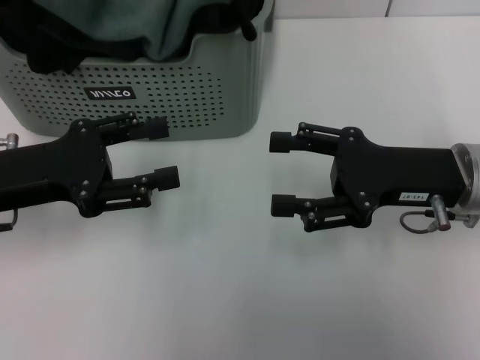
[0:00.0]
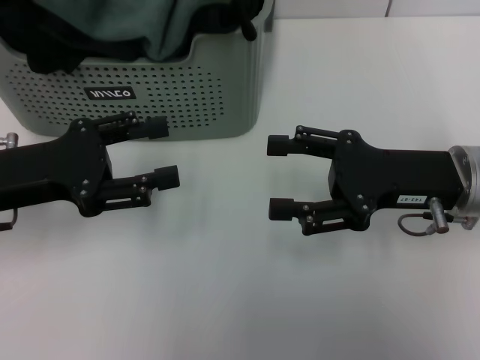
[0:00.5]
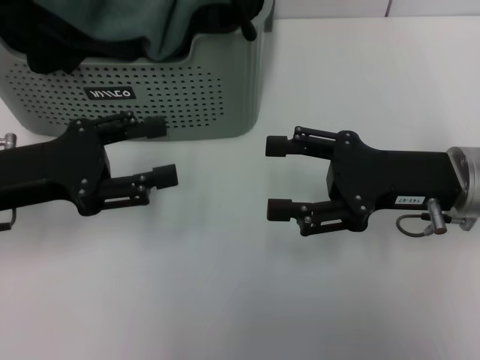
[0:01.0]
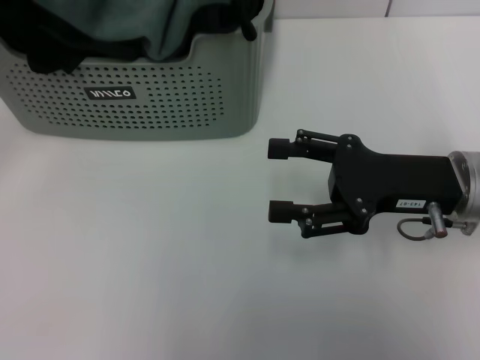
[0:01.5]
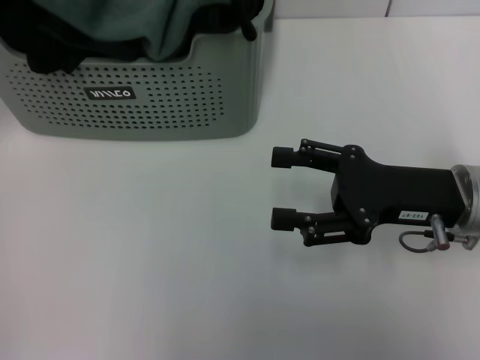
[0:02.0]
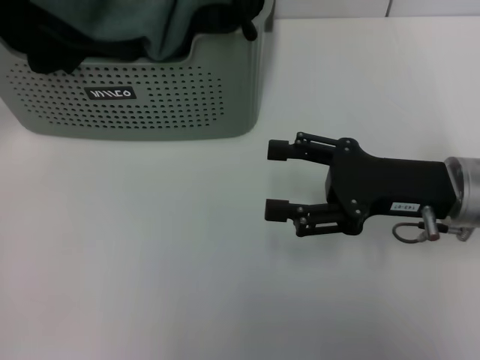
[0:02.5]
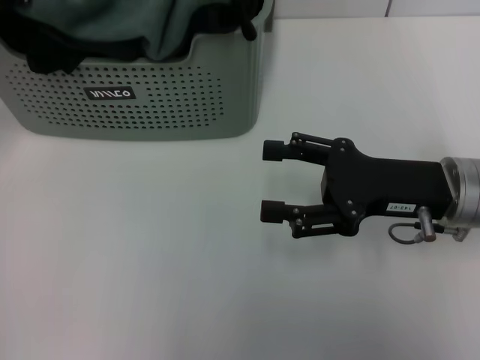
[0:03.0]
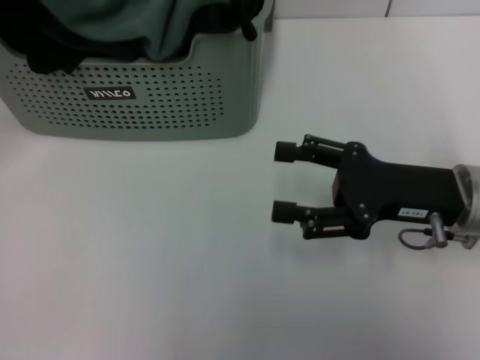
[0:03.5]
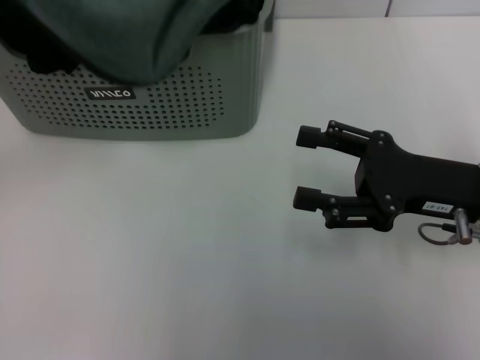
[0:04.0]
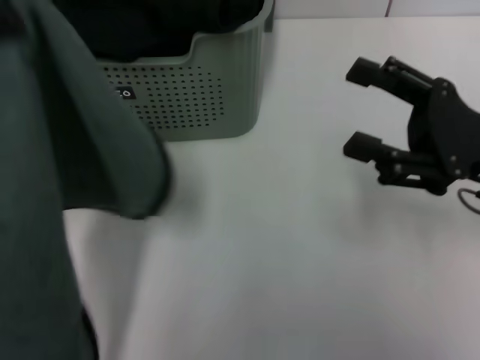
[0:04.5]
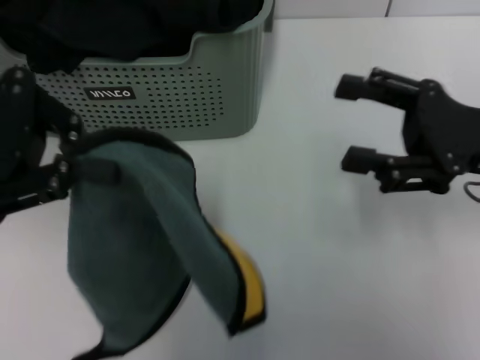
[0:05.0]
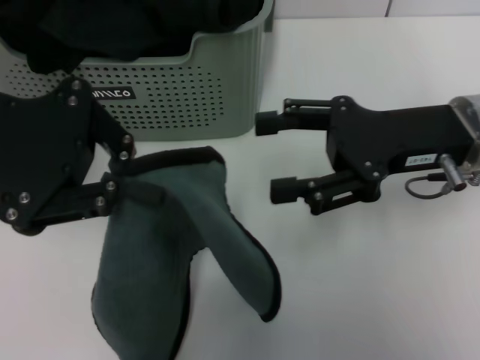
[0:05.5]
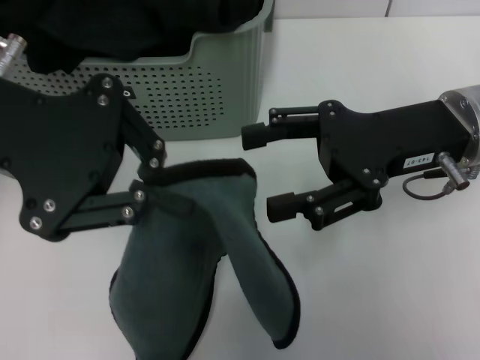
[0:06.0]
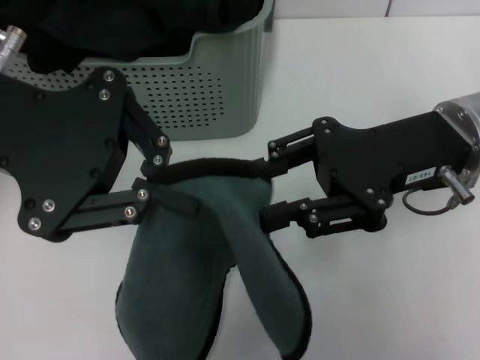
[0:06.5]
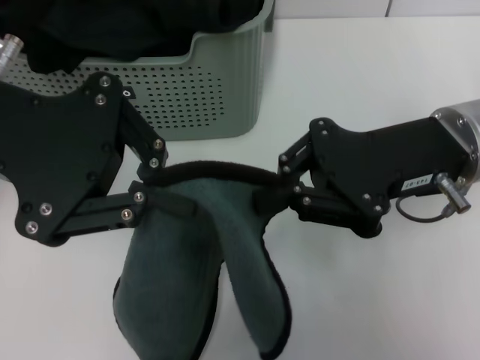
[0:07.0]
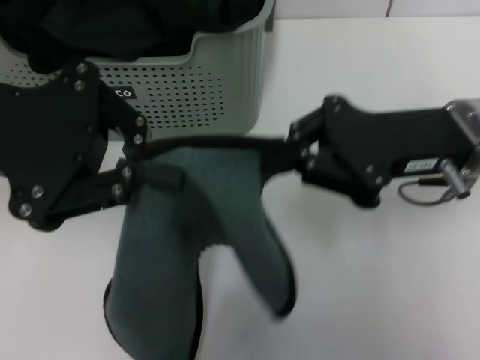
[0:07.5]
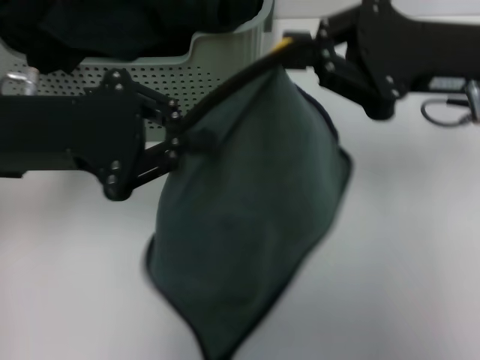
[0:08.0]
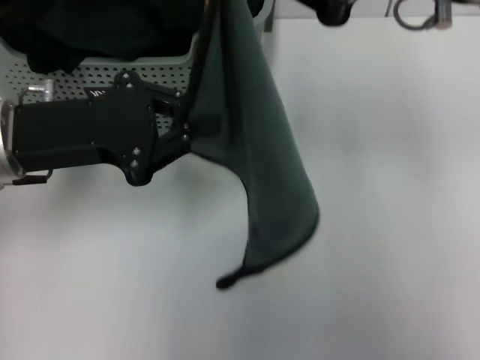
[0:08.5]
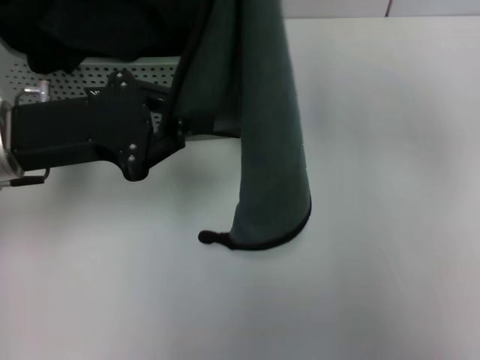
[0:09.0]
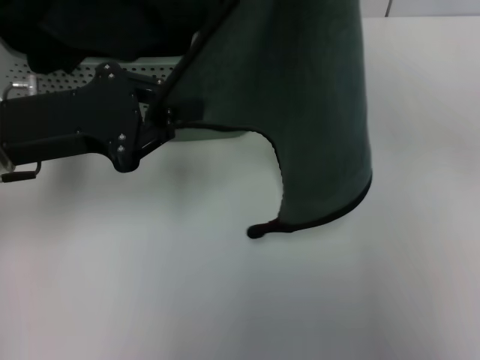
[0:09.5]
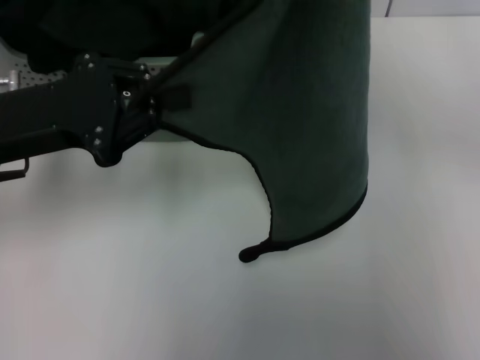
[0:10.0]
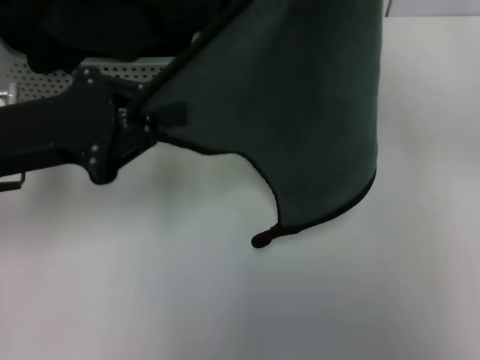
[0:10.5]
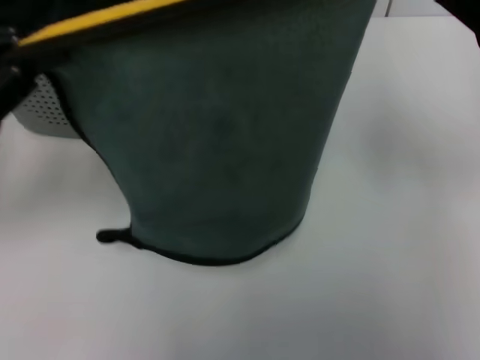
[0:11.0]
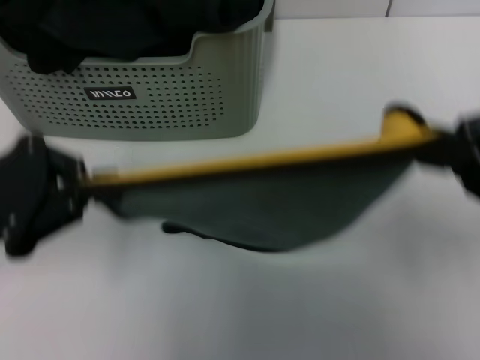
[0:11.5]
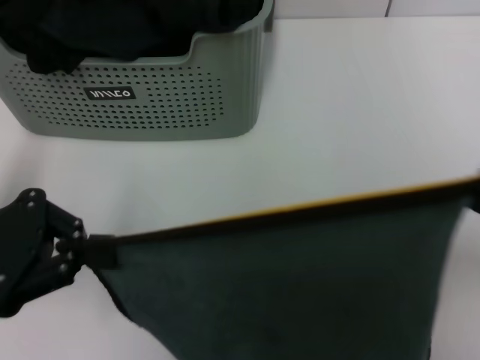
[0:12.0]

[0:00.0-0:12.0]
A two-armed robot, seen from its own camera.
Task of the whole recording: pick up the towel from the storage box and lay it flat on the table.
Step, 0:00.0 to 0:03.0: Pick up a towel with the left gripper.
Step, 0:03.5 to 0:07.0: Spread the towel flat with the left gripper.
0:00.0 to 0:02.0: The left gripper is displaced forward, upward and to the left by approximately 15 cm.
0:02.0 to 0:04.0: The left gripper moves backward, approximately 10 cm, and closes up.
0:04.0 to 0:06.0: The right gripper is displaced upward by roughly 5 cm, while the left gripper is displaced to the right by some 10 cm.
0:06.0 to 0:08.0: The left gripper heads downward, covering roughly 5 cm, while the right gripper closes up.
0:08.0 to 0:10.0: The right gripper shifts about 10 cm upward.
0:10.0 to 0:12.0: The left gripper shifts about 5 cm backward and to the left, while the right gripper heads downward and backward, covering roughly 15 cm.

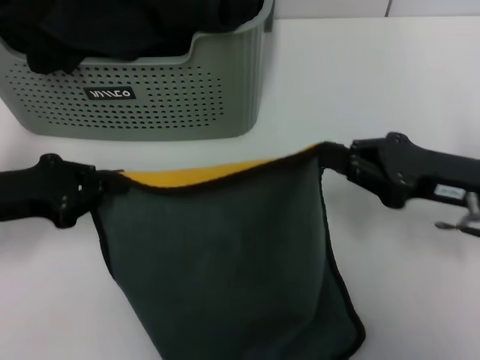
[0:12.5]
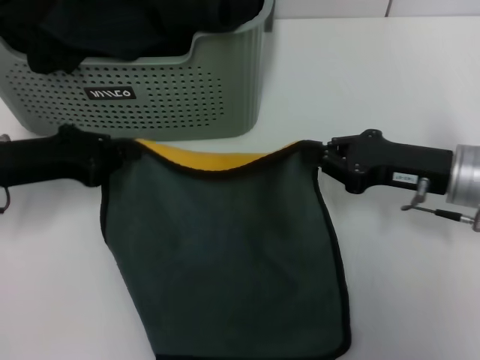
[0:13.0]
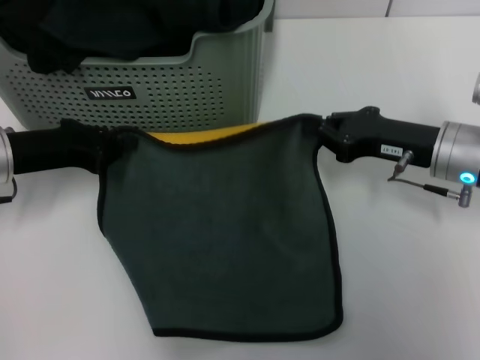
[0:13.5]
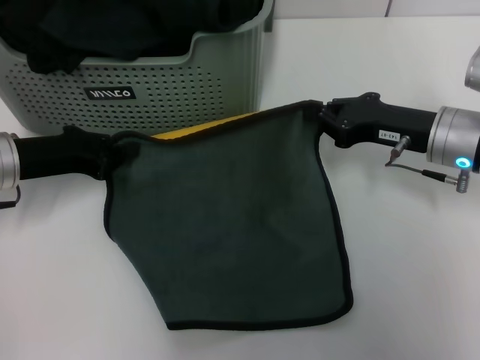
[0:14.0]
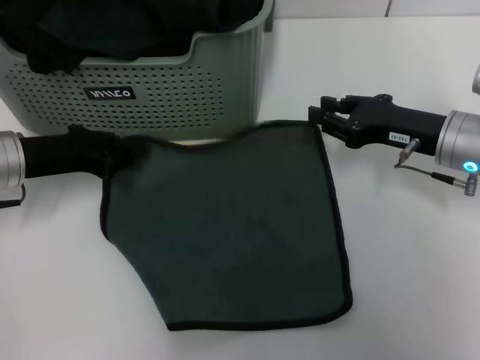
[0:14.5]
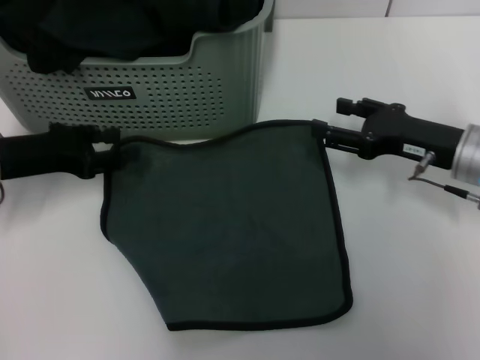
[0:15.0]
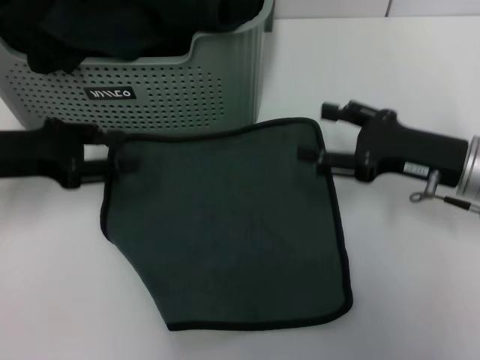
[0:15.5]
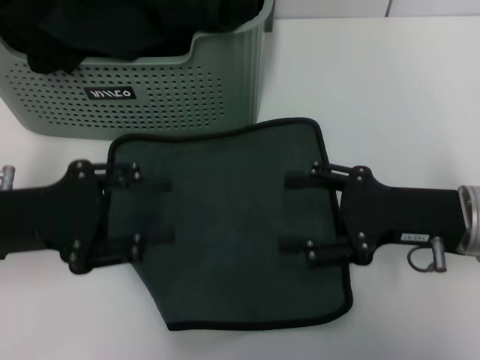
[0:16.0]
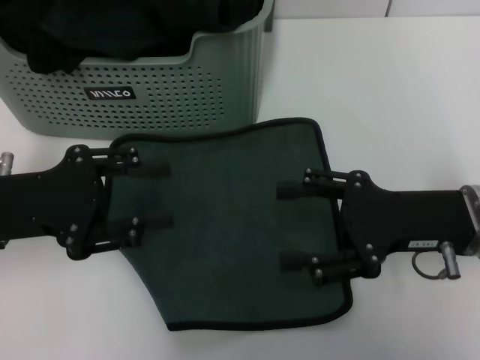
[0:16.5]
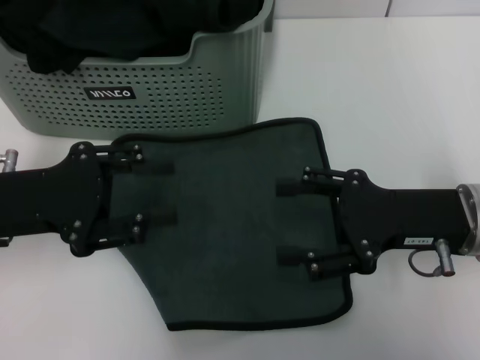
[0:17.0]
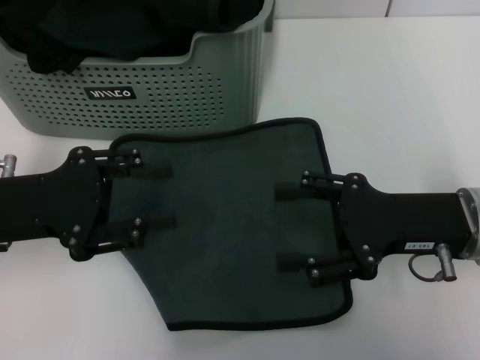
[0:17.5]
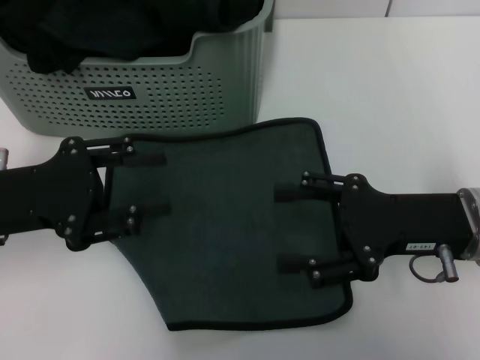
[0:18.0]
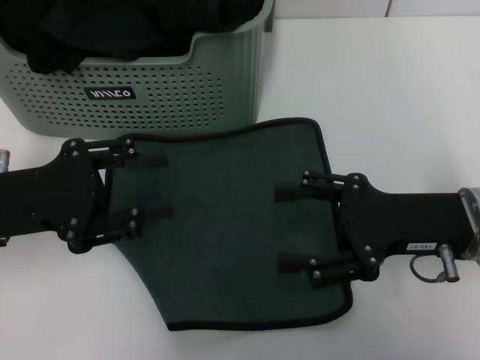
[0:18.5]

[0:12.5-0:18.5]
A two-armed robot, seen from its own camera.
Task of the whole recording: pick up the towel from the storage box and lay it flat on the table.
Step, 0:12.5 to 0:14.5: Spread the towel flat with the right gripper.
0:12.5 to 0:14.5: The two grippers go roughly 5 cm forward.
0:14.5 to 0:16.5: The grippers both shift backward by roughly 10 cm. The left gripper opens its fingers; the right gripper opens its fingers.
0:16.5 to 0:18.5: The two grippers keep their place.

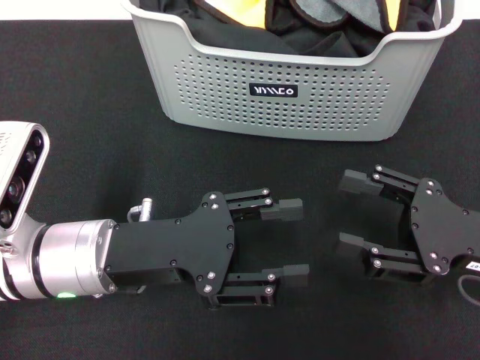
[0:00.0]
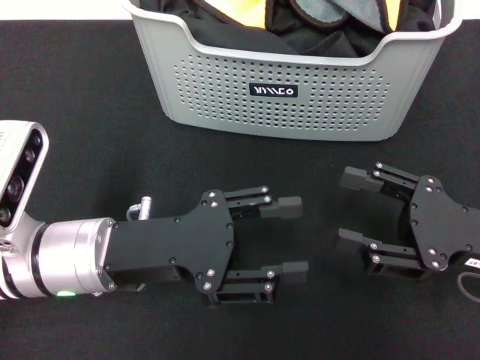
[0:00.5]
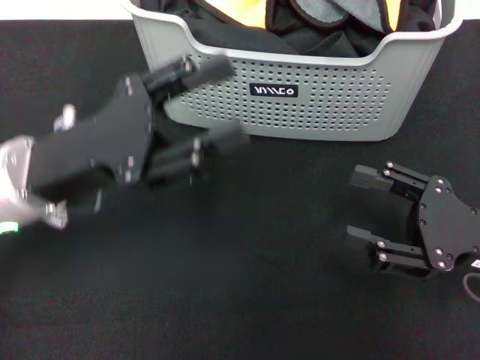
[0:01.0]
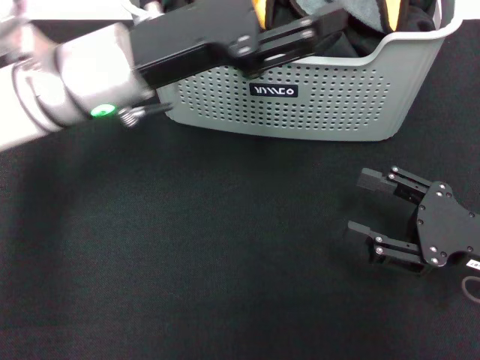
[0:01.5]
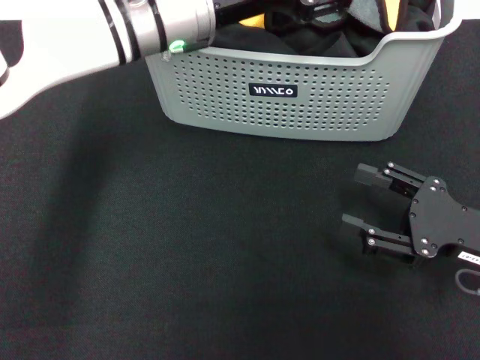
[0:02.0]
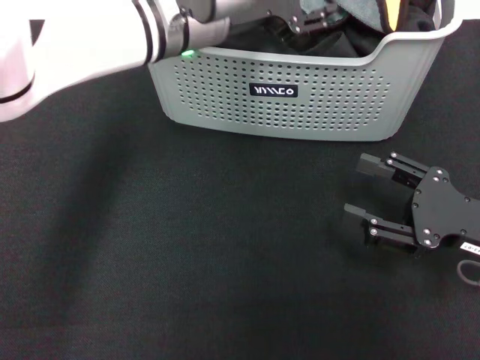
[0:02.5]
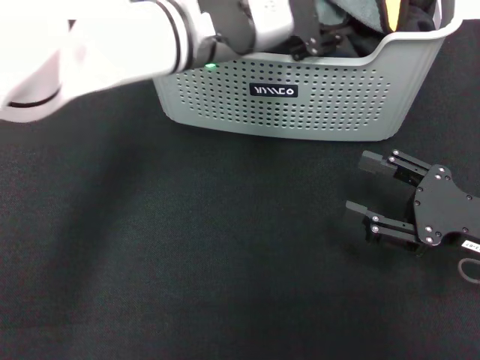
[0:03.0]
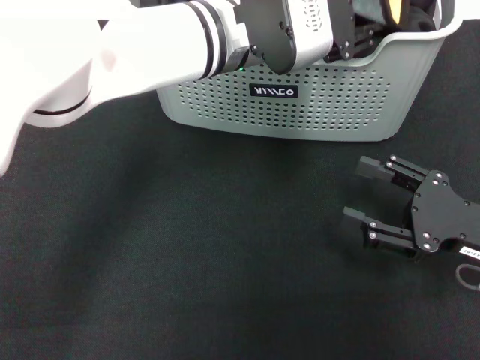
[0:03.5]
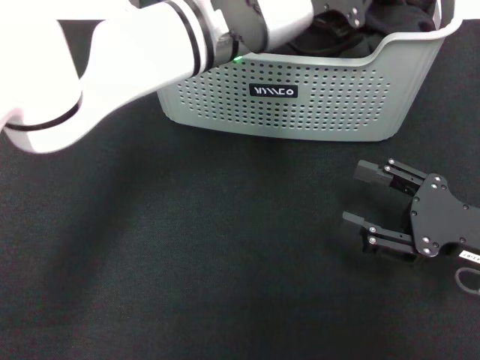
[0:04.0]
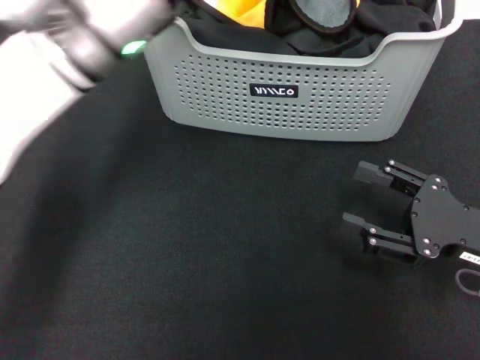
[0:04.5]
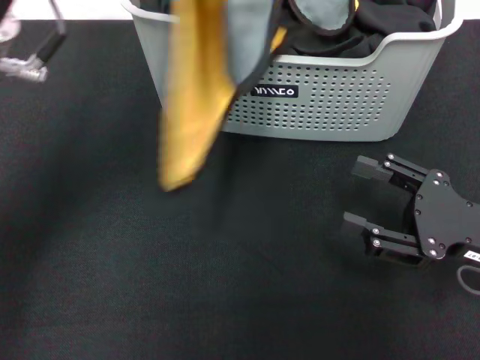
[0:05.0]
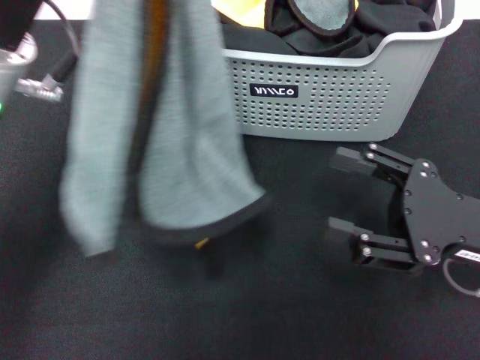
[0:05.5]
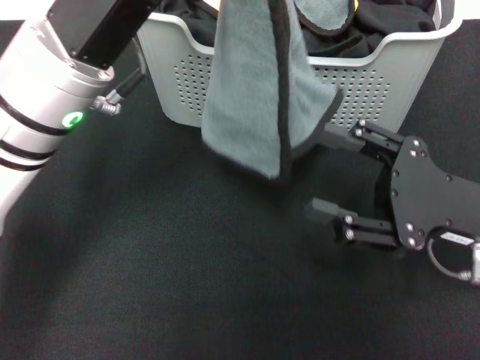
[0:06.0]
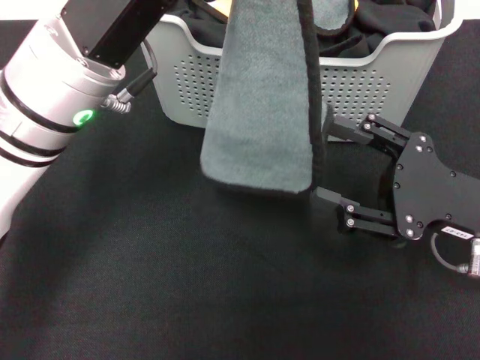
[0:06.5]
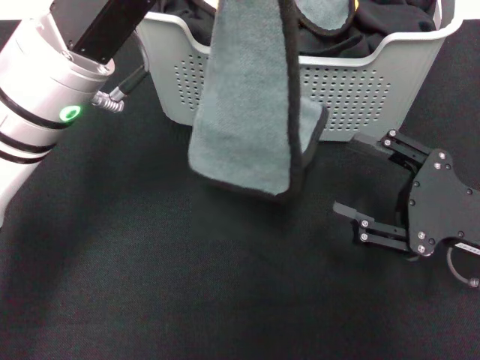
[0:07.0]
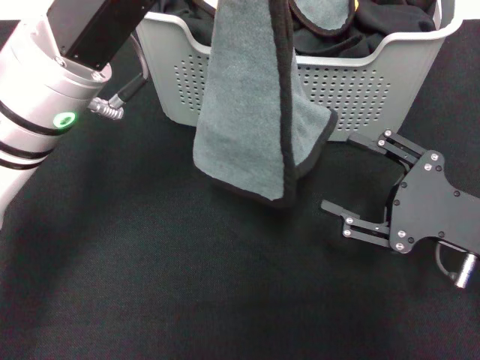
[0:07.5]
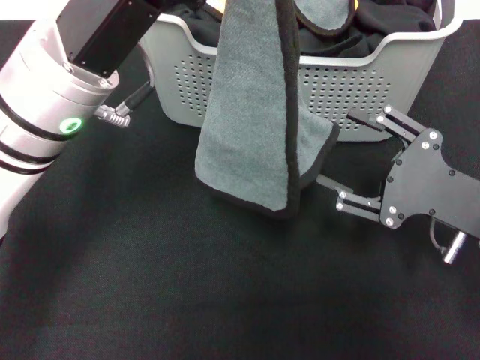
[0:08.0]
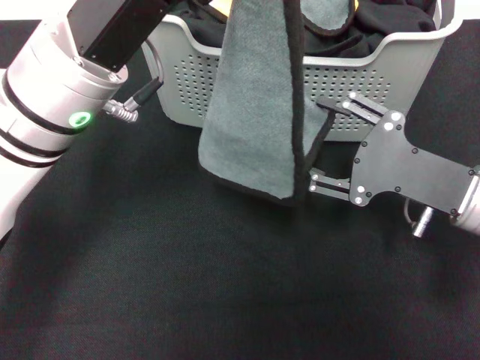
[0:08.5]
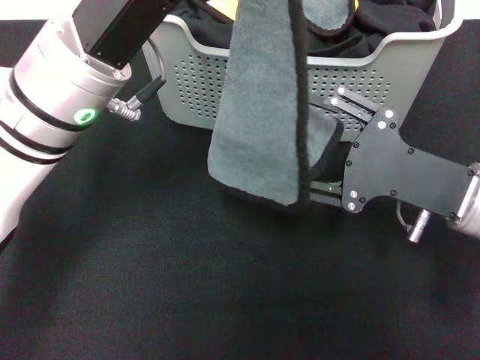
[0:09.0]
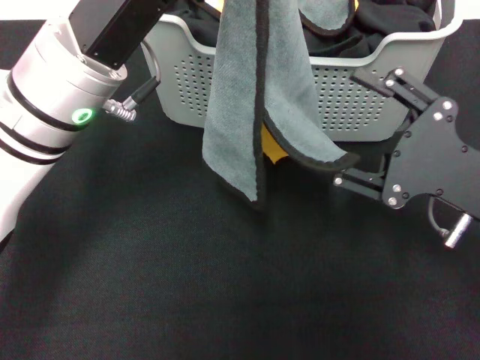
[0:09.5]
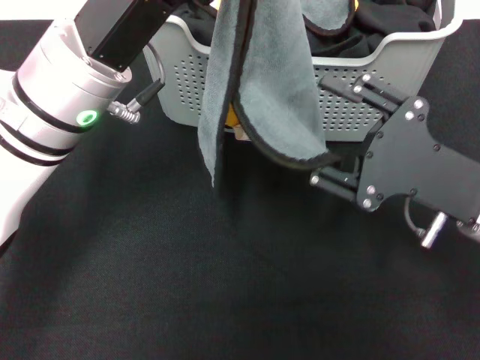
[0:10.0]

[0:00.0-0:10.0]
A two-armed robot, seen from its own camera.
Task of the whole recording: pick up the towel from the storage box and lay it flat on the black tablecloth.
Step, 0:00.0 to 0:03.5: Pick up a towel with the left gripper.
0:00.0 to 0:02.0: The left gripper is displaced forward, upward and to the right by approximately 20 cm.
0:02.0 to 0:04.0: The left gripper is displaced to the right by some 5 cm, and closes.
0:04.0 to 0:06.0: The left gripper shifts about 15 cm to the left and backward. The right gripper shifts by about 5 cm.
